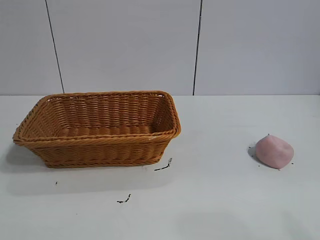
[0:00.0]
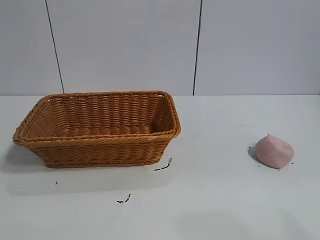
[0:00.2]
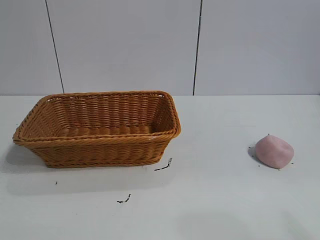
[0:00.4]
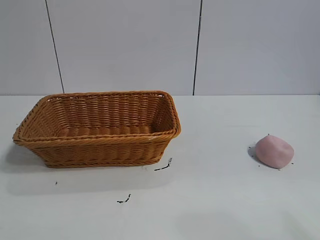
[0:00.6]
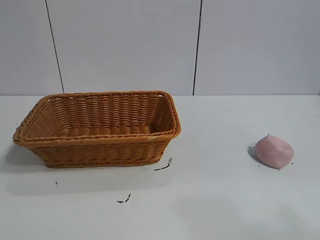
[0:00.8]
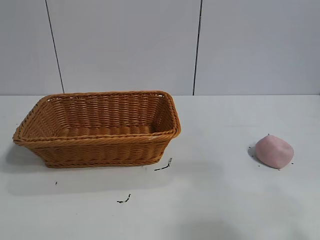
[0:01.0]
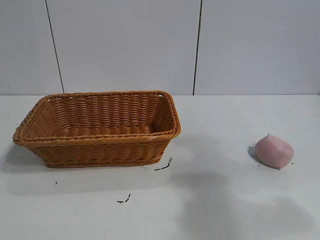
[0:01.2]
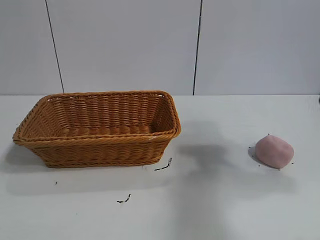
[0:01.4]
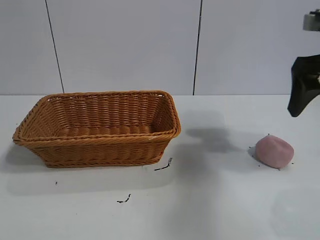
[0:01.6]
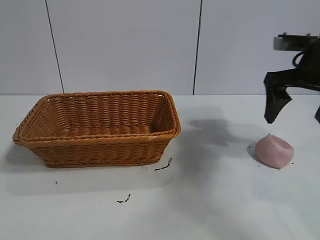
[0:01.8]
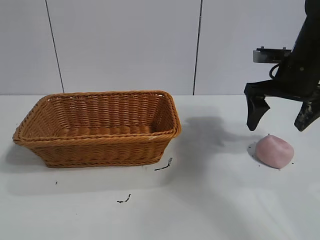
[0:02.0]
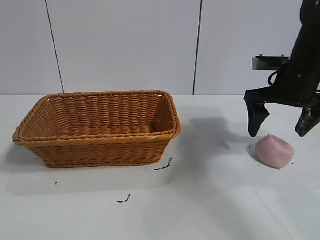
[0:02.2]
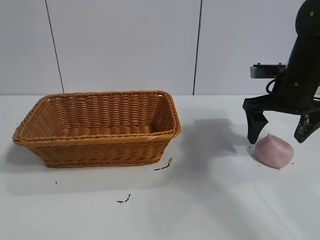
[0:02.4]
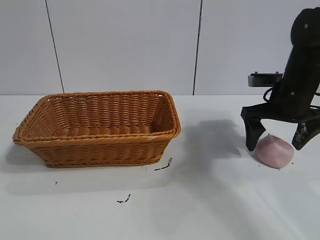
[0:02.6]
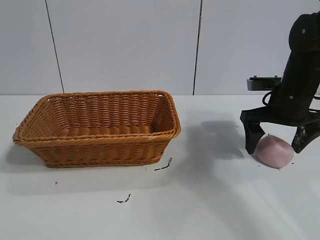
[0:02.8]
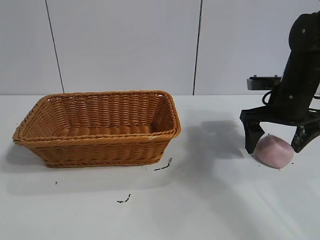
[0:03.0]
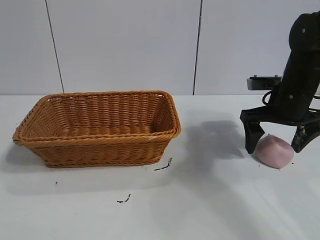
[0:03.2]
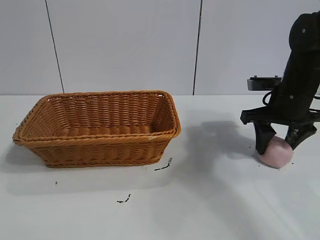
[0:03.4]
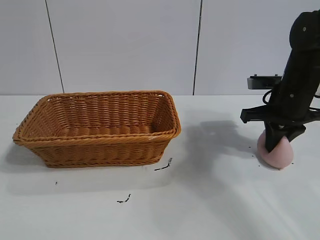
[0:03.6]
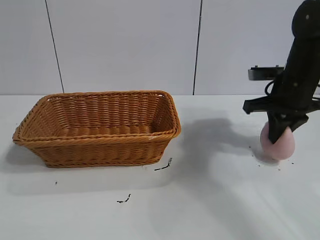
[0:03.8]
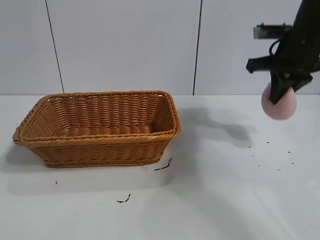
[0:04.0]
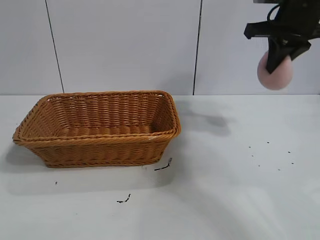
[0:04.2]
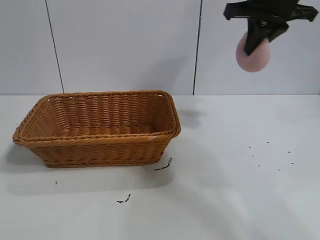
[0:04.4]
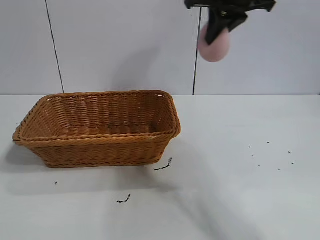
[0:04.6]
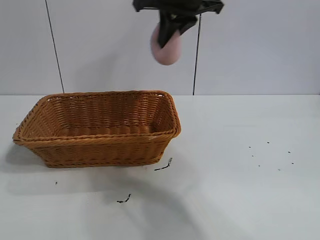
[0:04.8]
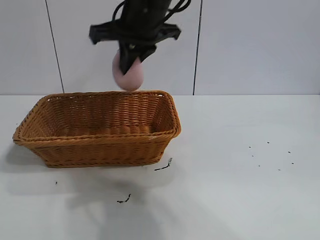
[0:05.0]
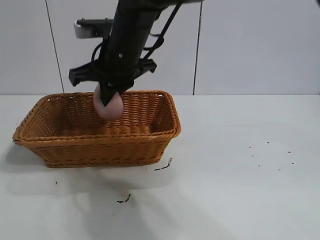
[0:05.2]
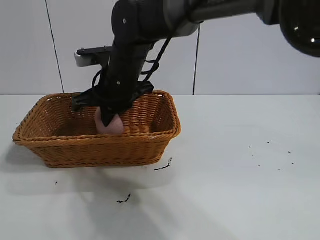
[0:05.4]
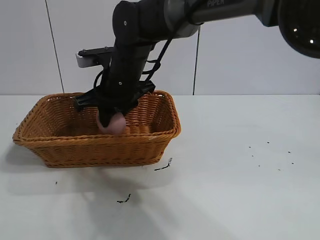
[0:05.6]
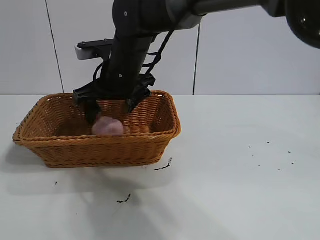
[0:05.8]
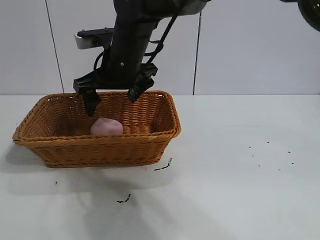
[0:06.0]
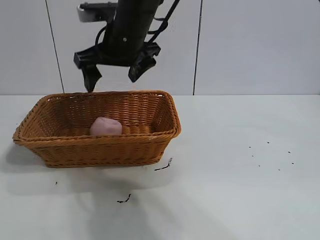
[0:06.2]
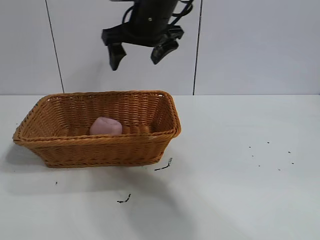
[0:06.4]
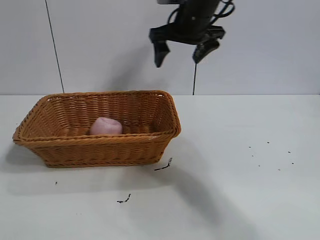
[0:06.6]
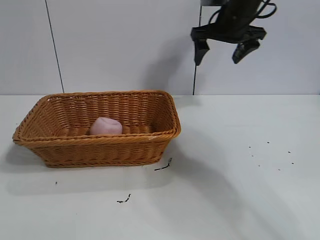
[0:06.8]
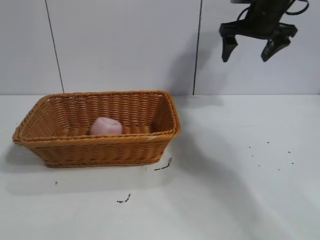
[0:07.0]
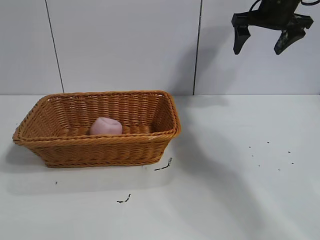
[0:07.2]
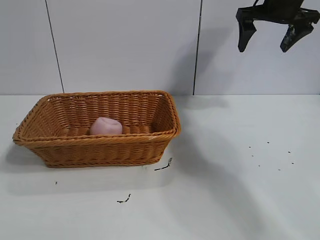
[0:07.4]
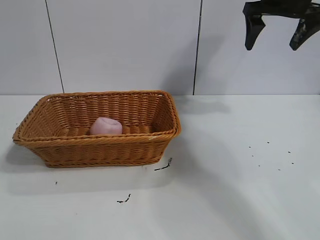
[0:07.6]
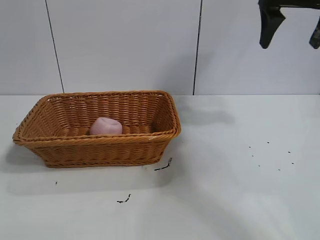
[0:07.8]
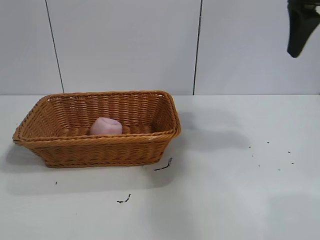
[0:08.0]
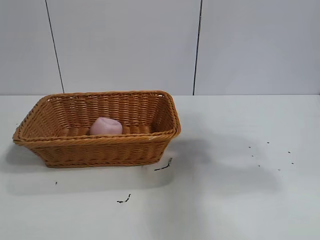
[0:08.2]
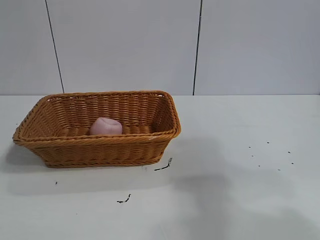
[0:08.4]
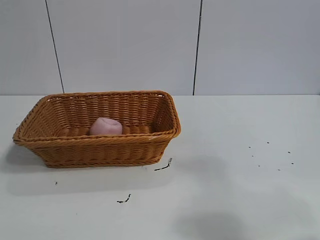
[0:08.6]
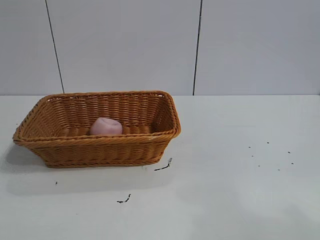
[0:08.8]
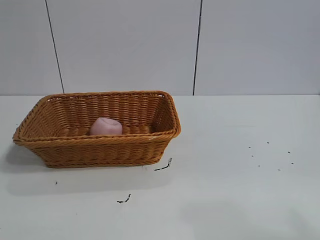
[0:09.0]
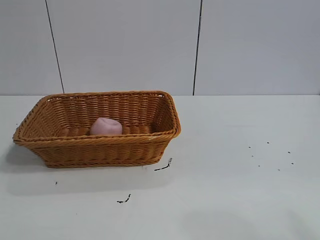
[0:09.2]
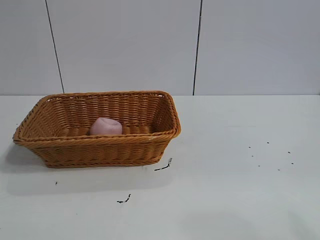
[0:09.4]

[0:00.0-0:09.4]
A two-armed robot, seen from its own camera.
Task of the whole recording: pick up the peach and put it into the basket.
Step, 0:00.8 to 0:03.6: Grasp the peach with right gripper.
Step, 0:03.8 to 0:05.6: Place the peach in the basket with right gripper.

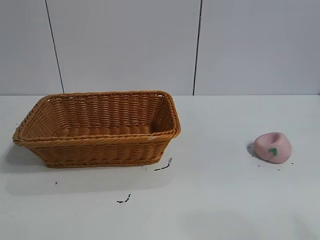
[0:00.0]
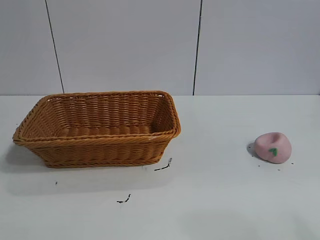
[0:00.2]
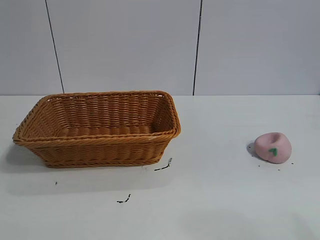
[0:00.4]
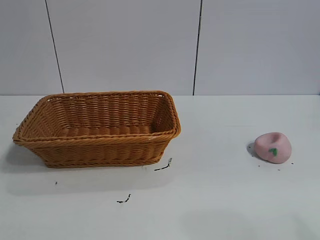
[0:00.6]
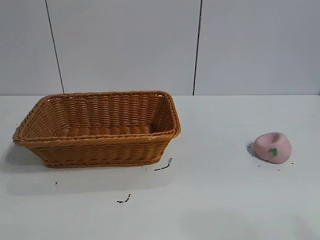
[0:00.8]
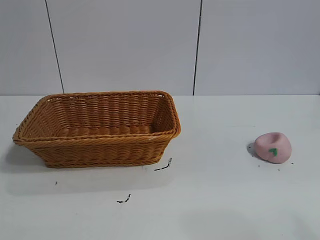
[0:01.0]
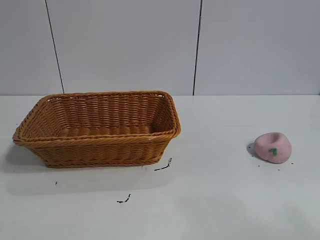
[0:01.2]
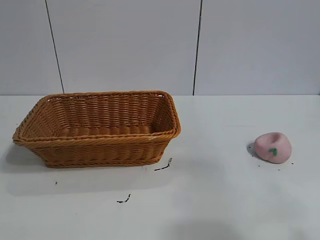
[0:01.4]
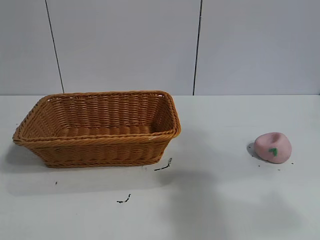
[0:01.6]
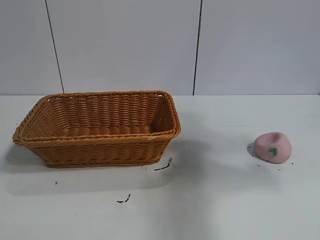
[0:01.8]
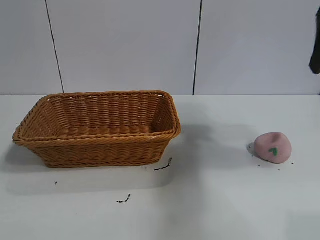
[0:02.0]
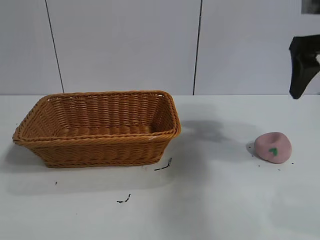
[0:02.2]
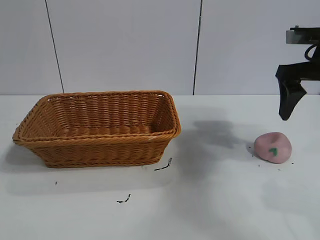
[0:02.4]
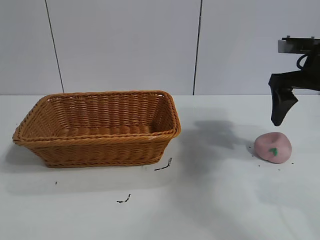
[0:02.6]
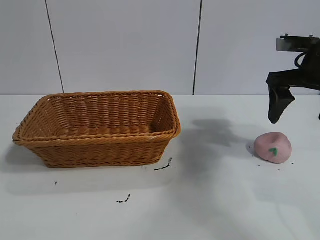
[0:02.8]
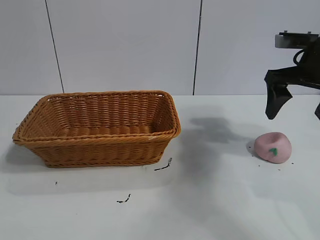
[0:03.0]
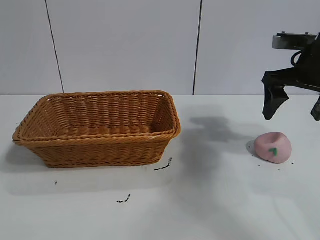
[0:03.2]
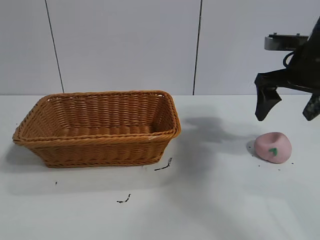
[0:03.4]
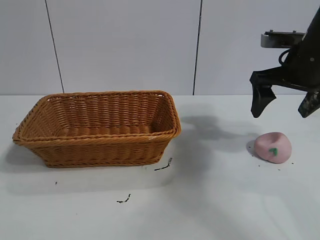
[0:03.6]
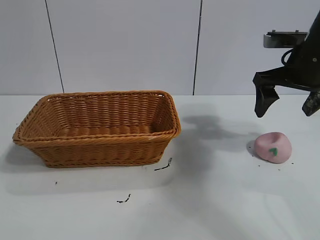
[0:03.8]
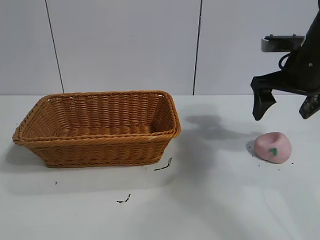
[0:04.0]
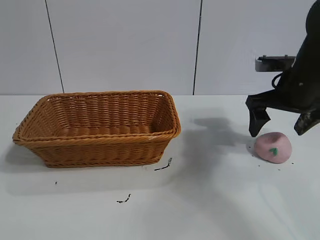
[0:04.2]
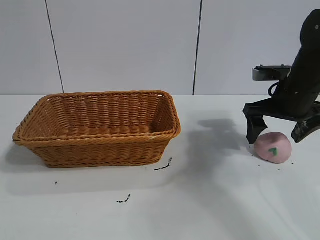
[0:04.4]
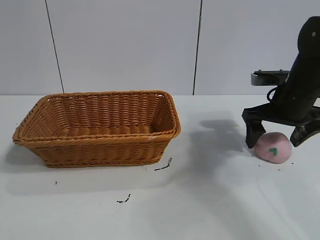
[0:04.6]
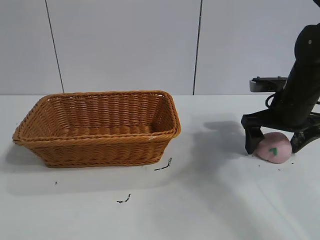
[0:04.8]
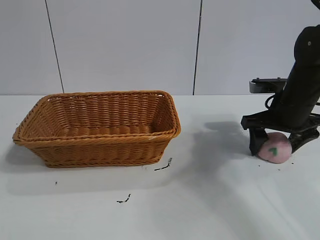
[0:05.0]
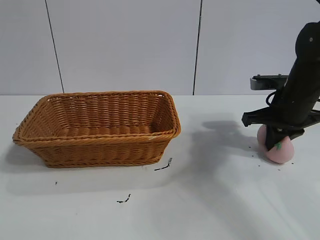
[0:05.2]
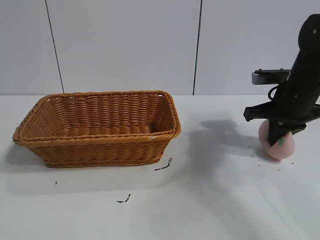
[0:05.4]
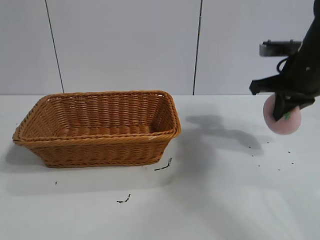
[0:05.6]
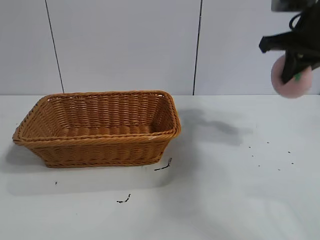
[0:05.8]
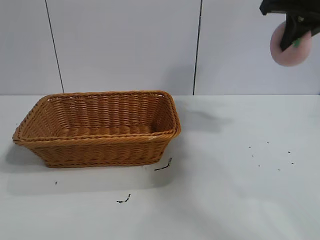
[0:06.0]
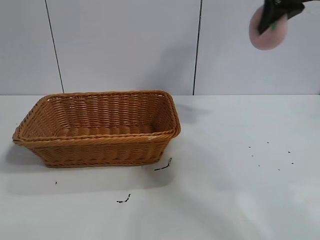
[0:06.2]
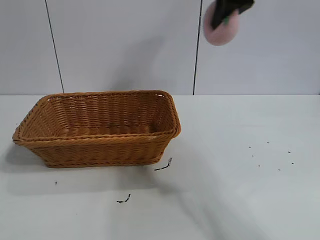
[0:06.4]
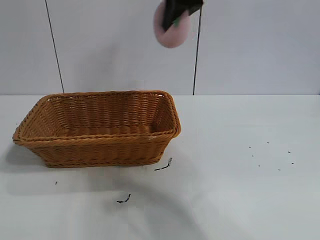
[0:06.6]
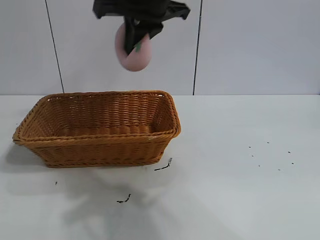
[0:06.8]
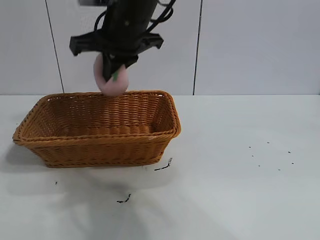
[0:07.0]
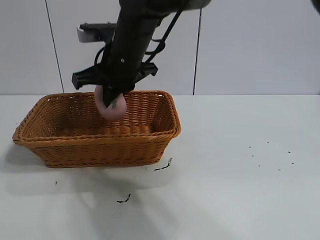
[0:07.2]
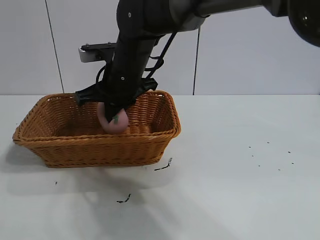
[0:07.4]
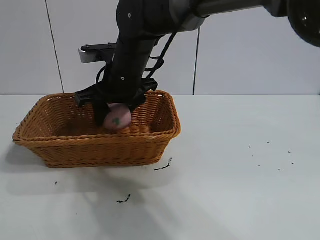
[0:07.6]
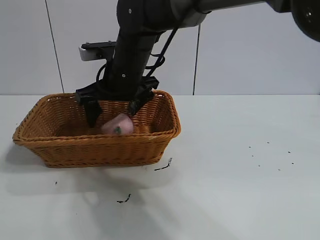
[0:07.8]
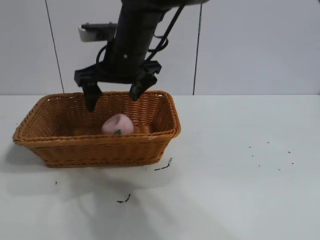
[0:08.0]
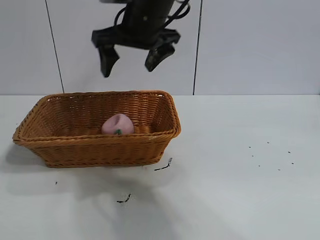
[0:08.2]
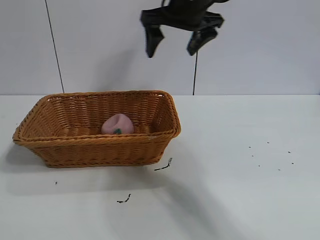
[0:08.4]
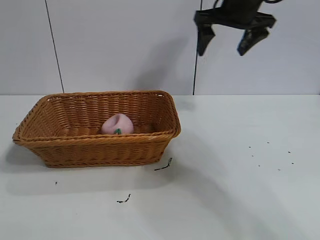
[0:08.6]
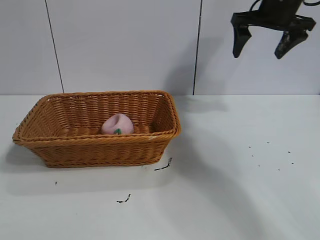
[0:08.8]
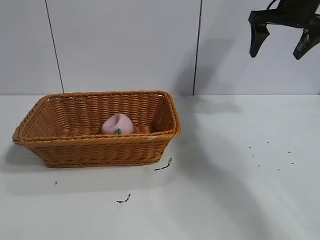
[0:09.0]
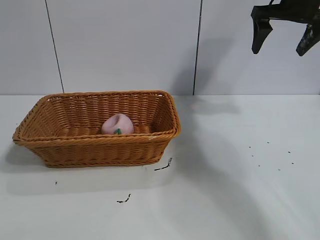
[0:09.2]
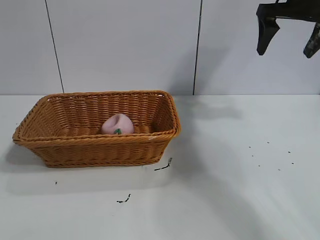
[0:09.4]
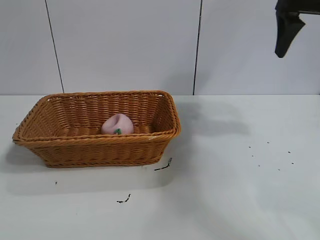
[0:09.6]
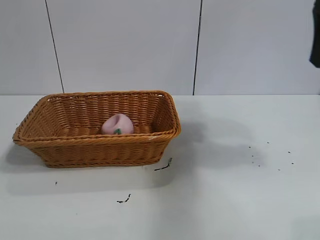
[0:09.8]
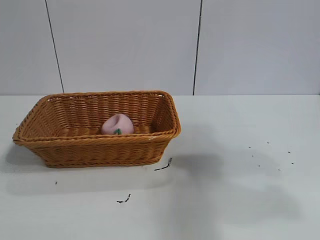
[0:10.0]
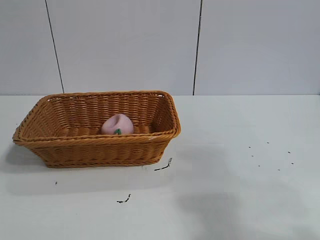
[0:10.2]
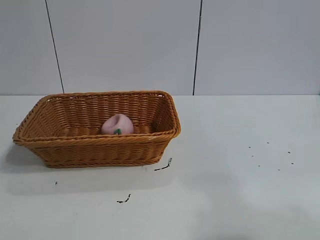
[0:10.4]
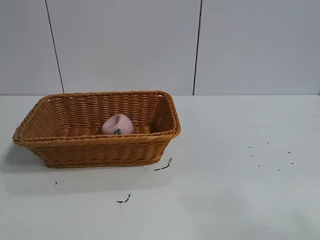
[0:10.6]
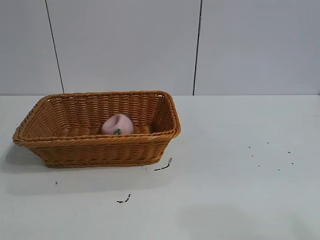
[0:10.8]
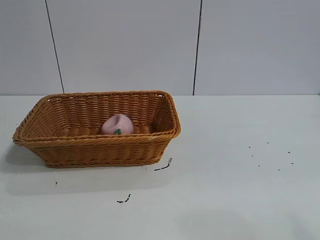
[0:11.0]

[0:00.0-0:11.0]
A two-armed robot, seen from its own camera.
Task of the whole recording: pick up the peach and put it into the basket.
Step, 0:01.0 to 0:05.4: Grasp the peach with right gripper.
Step, 0:05.8 to 0:08.0: Place the peach in the basket with right gripper.

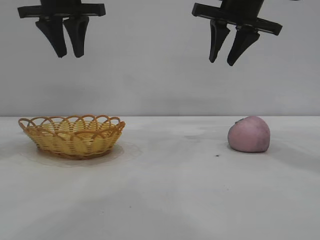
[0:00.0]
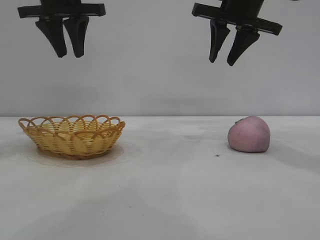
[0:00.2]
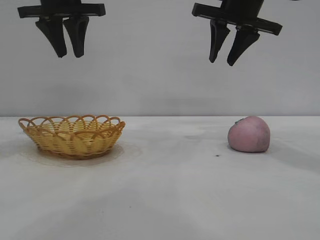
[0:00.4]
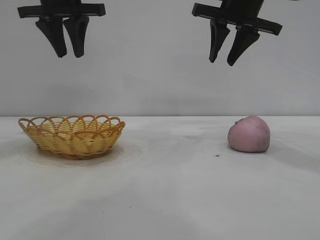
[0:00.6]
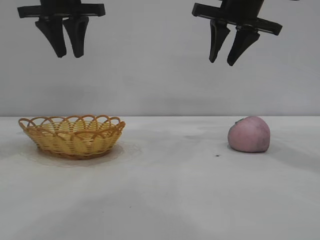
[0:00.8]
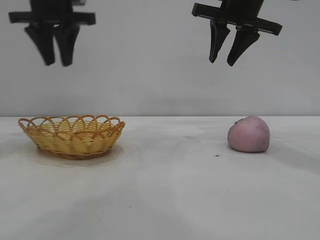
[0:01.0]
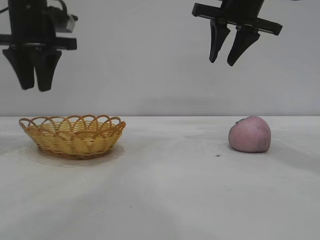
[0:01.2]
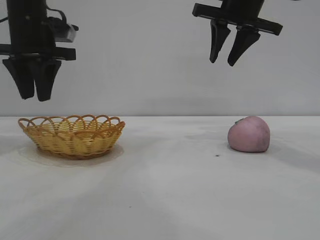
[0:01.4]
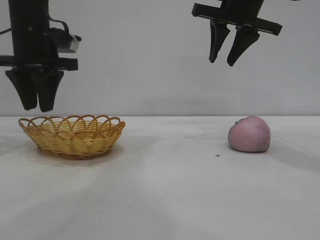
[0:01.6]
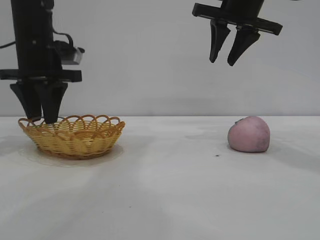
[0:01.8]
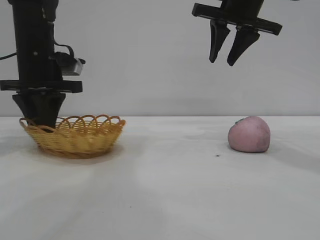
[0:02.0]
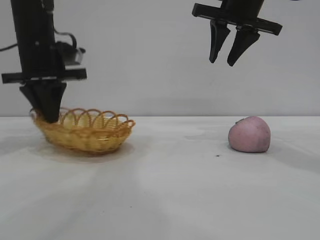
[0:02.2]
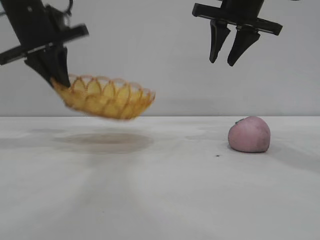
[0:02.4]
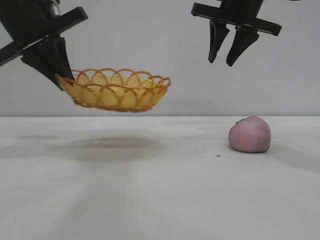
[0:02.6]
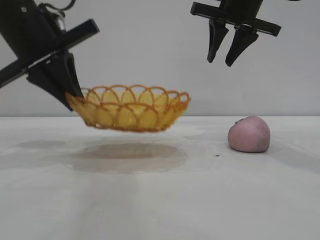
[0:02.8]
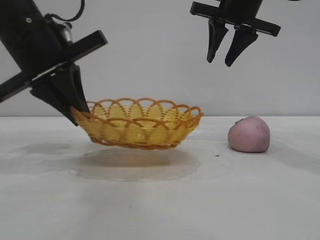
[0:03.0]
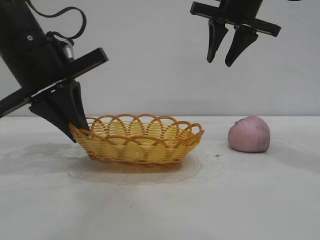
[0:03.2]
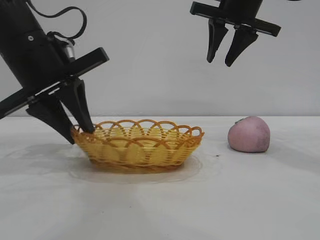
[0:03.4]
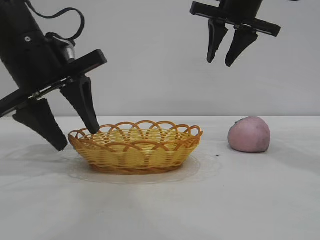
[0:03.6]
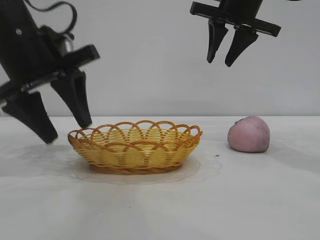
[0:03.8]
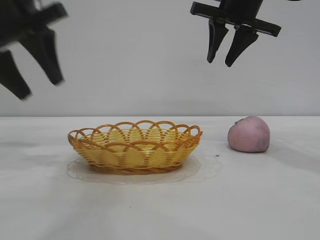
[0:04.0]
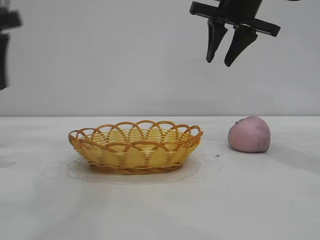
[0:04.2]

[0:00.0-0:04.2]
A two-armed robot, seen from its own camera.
Task of the whole recording: pick up the peach and put it into the basket.
Step, 0:00.0 to 0:03.8: Move the basket to the center of view.
